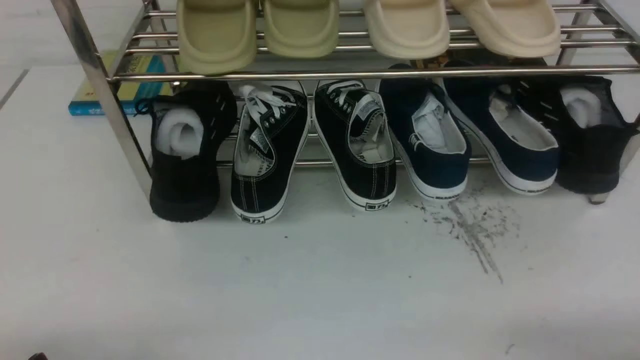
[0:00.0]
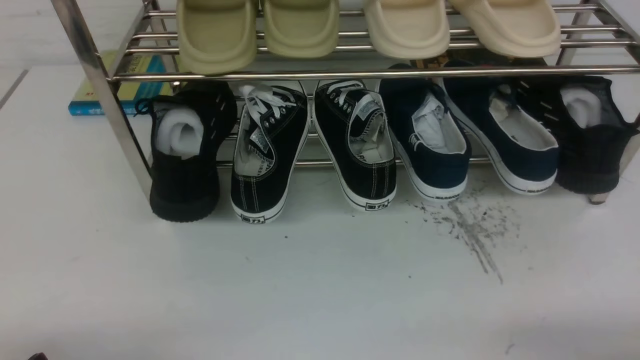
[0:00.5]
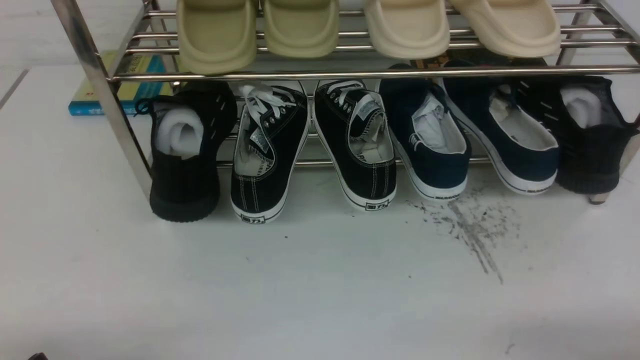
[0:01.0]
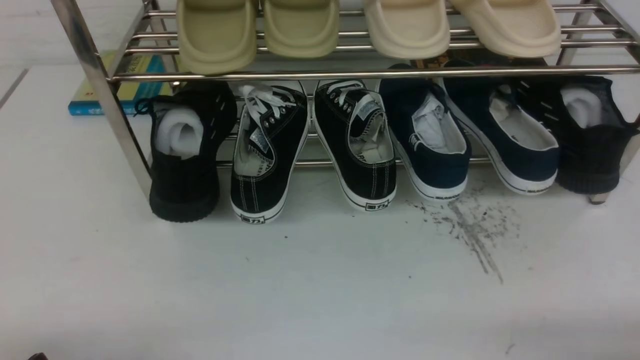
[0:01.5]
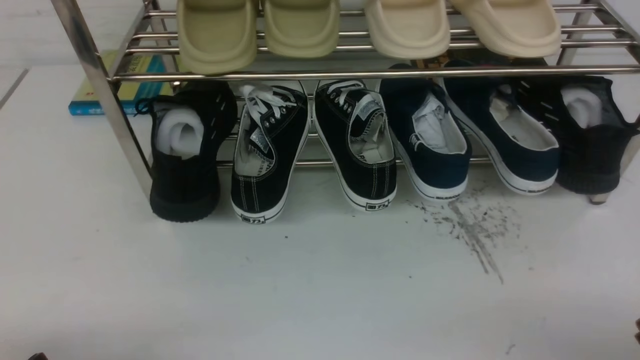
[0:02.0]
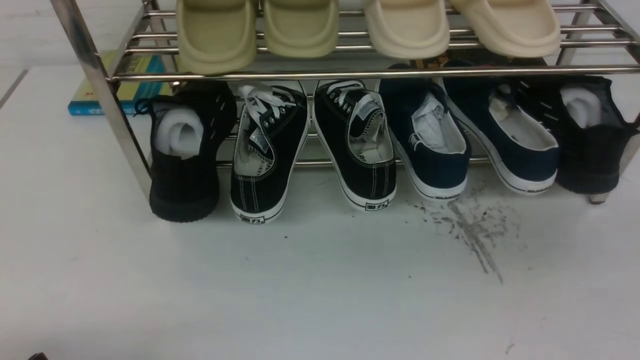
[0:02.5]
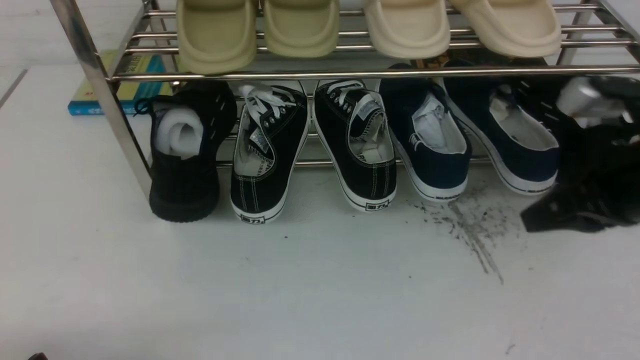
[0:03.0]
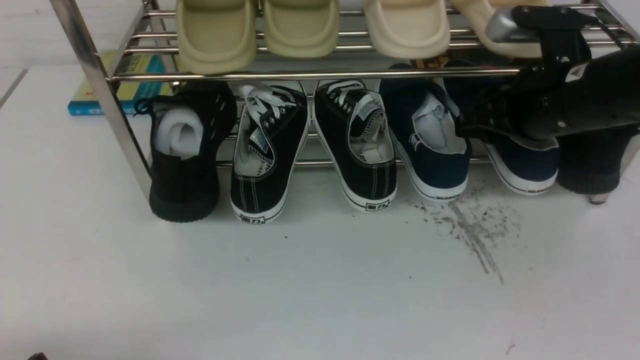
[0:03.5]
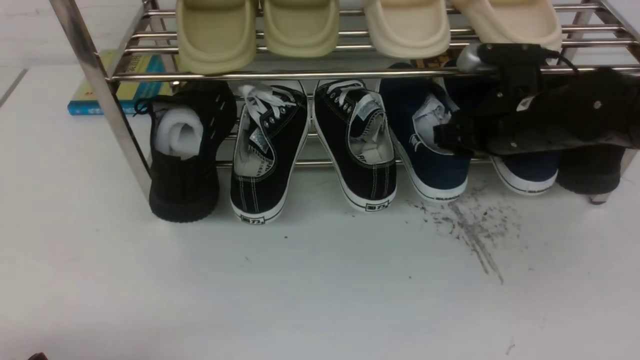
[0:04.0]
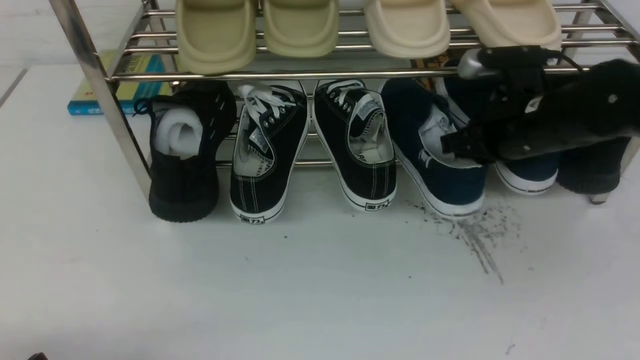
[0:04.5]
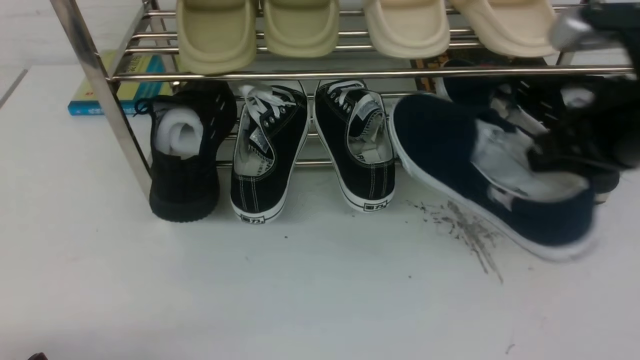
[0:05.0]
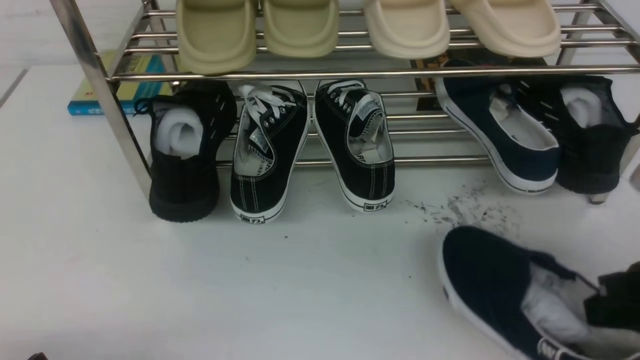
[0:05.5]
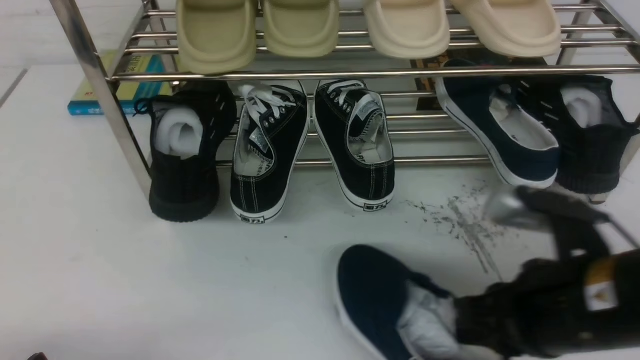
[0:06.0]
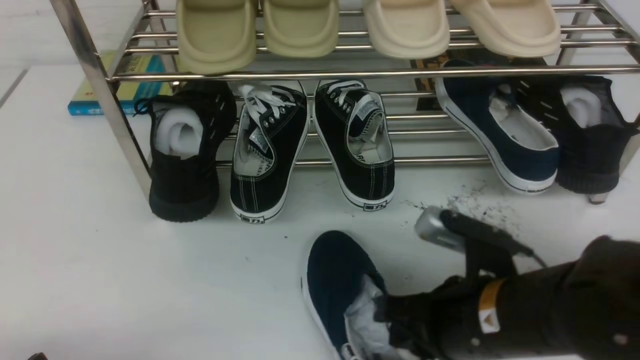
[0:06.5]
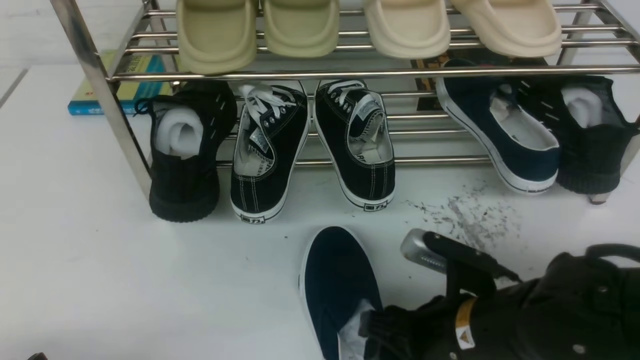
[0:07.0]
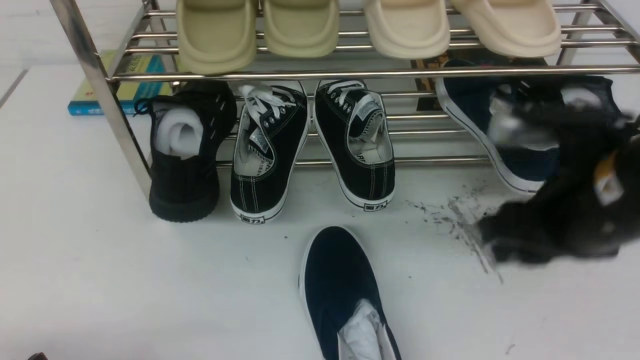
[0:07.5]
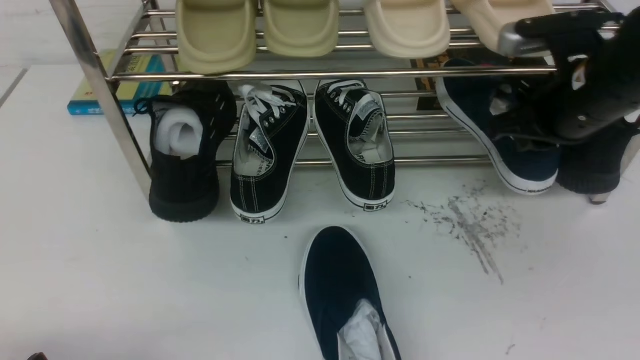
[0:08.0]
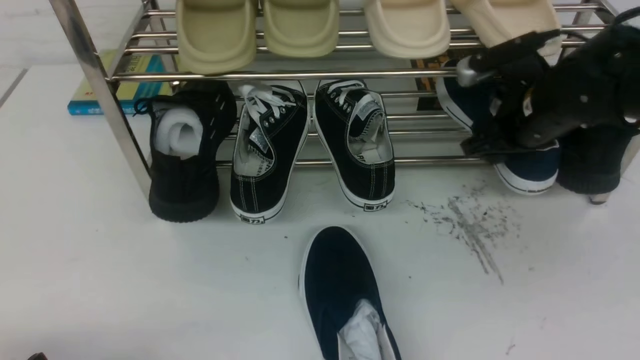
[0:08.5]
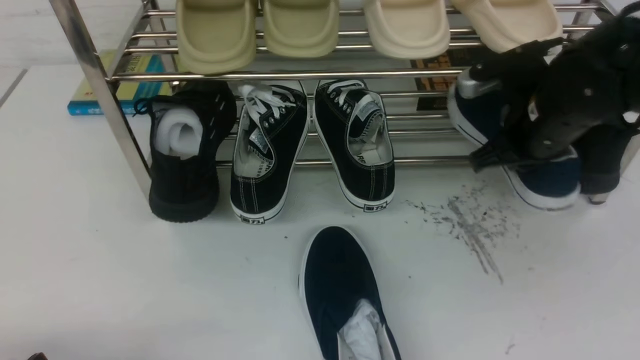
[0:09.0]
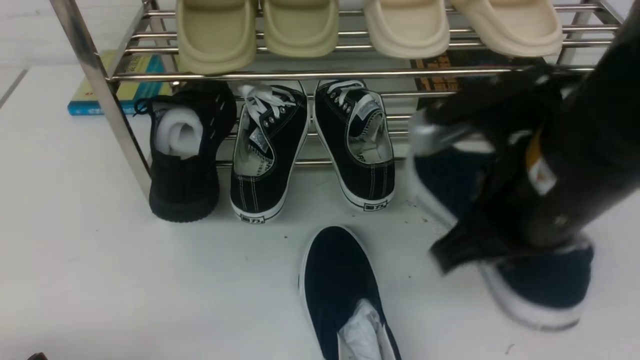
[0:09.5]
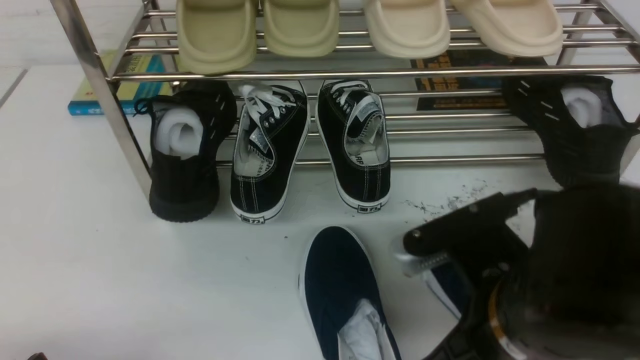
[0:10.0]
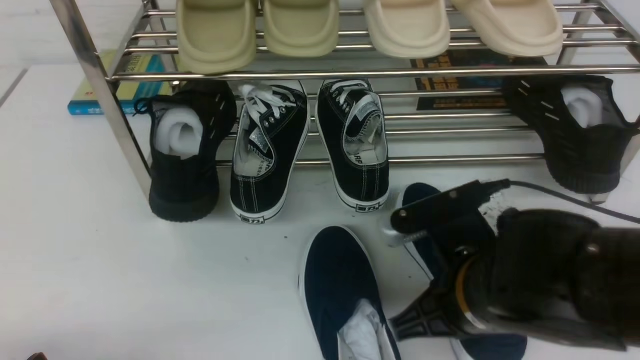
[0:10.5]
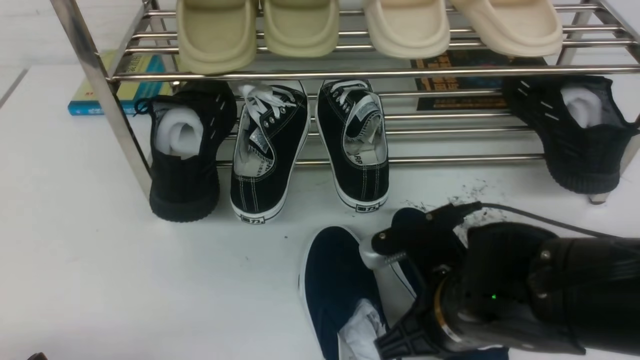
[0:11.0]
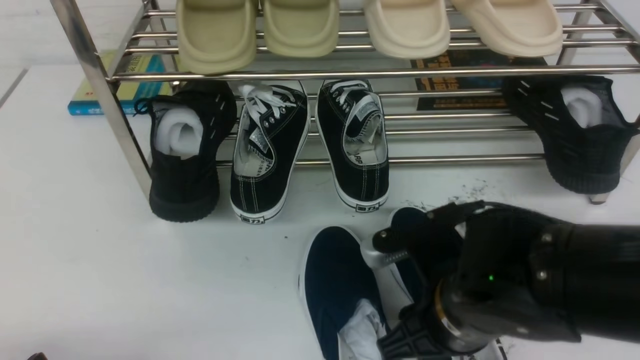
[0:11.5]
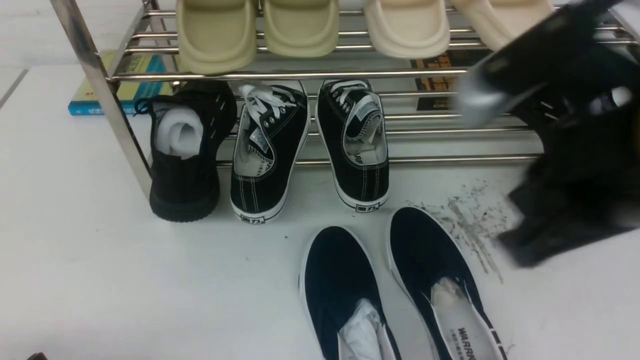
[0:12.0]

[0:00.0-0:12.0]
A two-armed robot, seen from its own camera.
Step, 0:00.0 to 0:04.5: use the right arm to clamp a shoe on the right side of the shoe rack.
Step, 0:05.0 to 0:07.0: use the right arm to take out the clamped shoe from the shoe rack and put it down.
Step, 0:08.0 to 0:09.0: use the right arm to clamp a shoe on the right side of the shoe rack.
Step, 0:09.5 to 0:12.0: use the right arm to take out the clamped shoe from the shoe rack and put it down.
0:02.0 to 0:04.0: The right gripper moves forward, roughly 30 cm, and closes, then opens again.
0:04.0 to 0:06.0: The right gripper moves backward, roughly 20 cm, and closes.
0:06.0 to 0:08.0: The right gripper moves forward, about 15 cm, and opens, then closes once more.
0:08.0 to 0:10.0: The right gripper is displaced backward and to the left by about 20 cm, and closes up.
0:10.0 to 0:12.0: The right gripper moves upward and to the right, approximately 15 cm, and opens, then closes again.

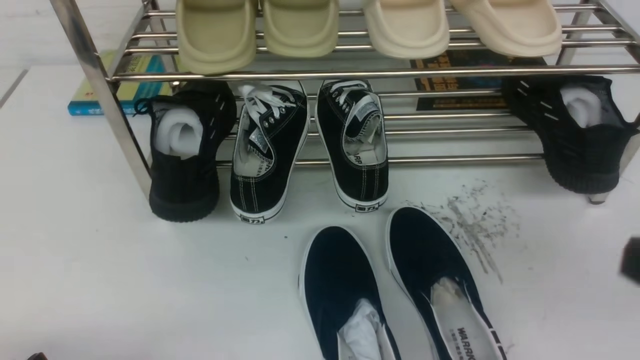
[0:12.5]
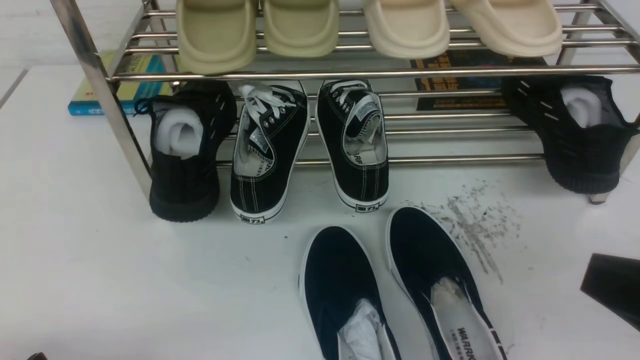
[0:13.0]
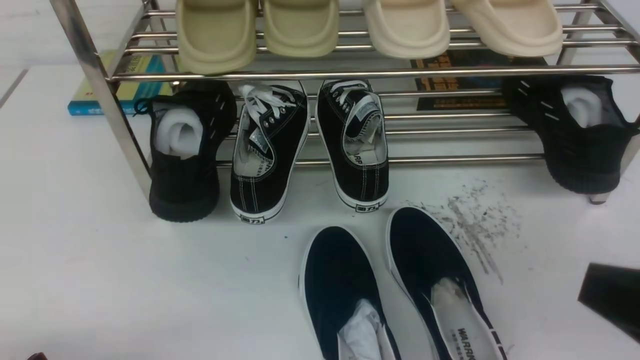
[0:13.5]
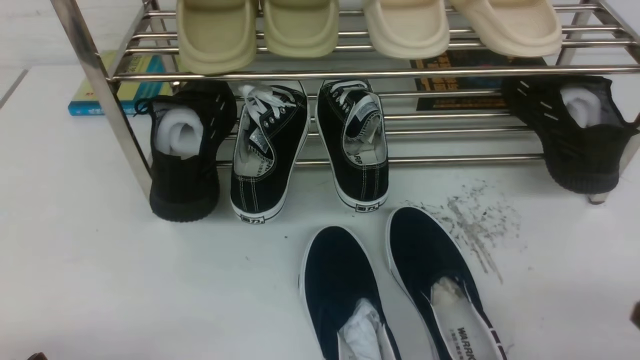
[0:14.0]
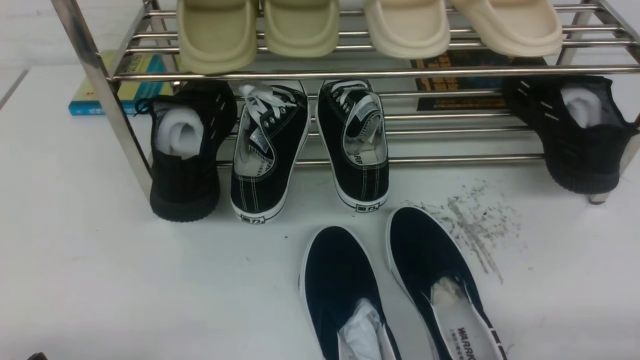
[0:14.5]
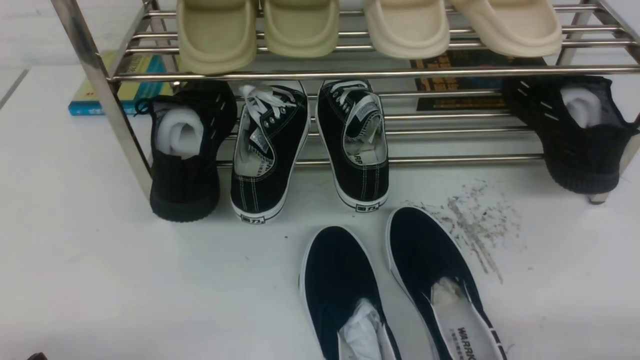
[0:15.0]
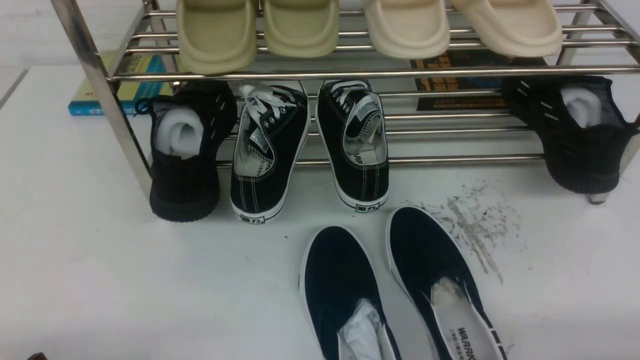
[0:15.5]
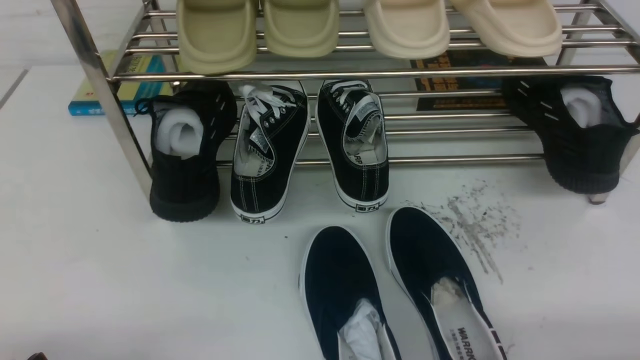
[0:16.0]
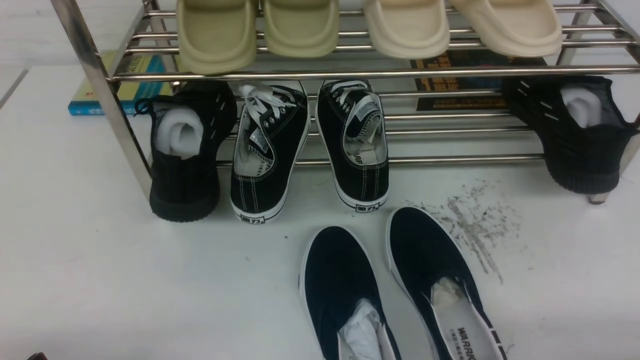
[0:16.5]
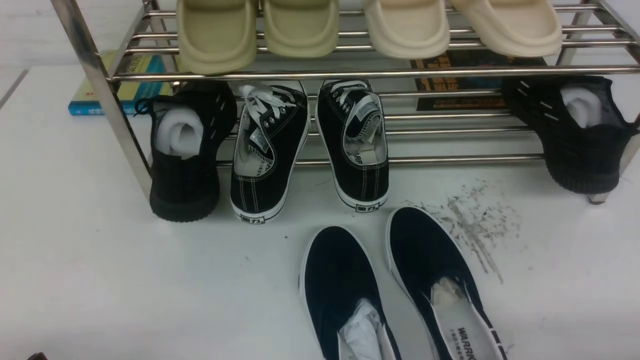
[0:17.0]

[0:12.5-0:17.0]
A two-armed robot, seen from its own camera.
0:12.5 to 0:14.5: The right gripper shifts roughly 15 cm downward.
